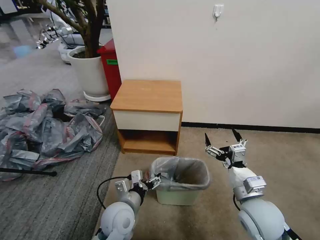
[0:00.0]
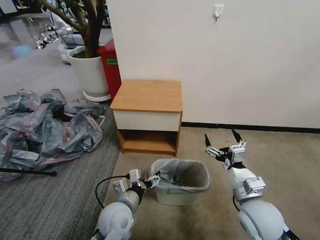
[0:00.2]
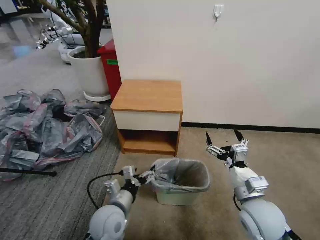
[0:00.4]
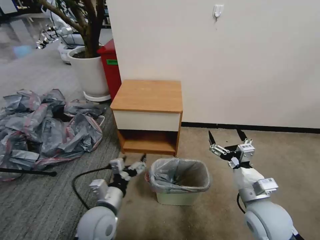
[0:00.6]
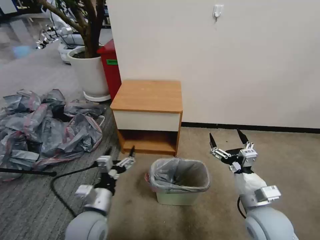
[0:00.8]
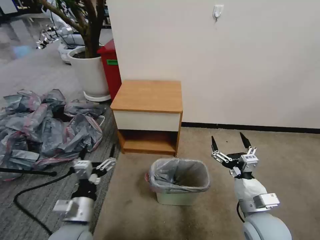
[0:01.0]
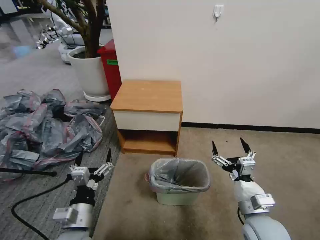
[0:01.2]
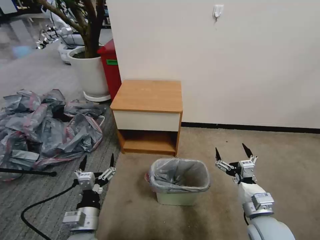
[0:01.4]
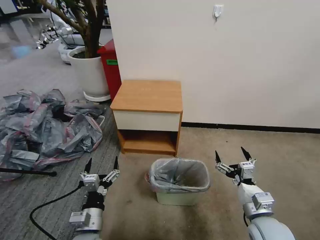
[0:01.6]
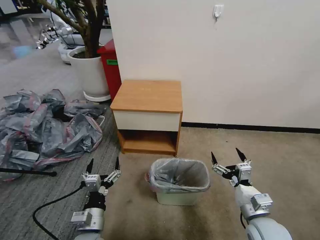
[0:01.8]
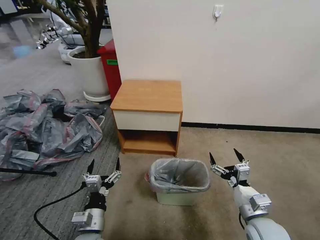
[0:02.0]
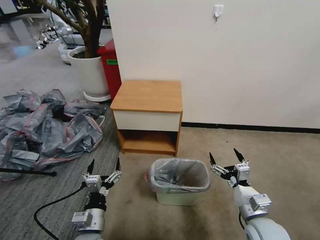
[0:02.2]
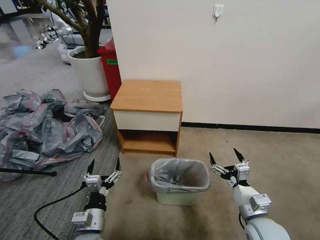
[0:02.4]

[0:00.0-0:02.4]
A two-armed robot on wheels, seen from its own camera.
Task of the whole recording: Pick up the garbage bag from the table and place it over the trash can.
0:00.0 to 0:01.2: The left gripper shifts roughly 10 cm to the left and backward.
0:01.2 to 0:02.4: The left gripper heads downward, covering approximately 5 cm.

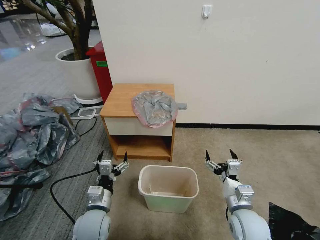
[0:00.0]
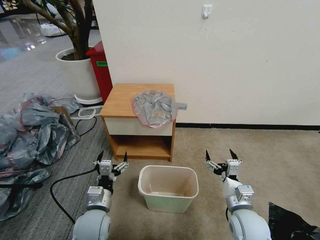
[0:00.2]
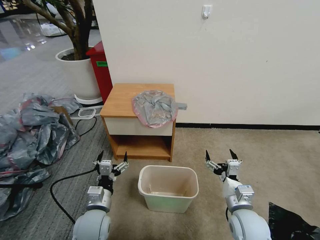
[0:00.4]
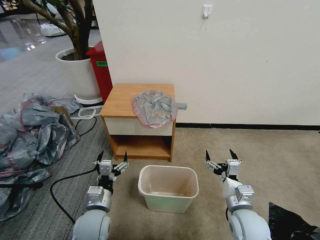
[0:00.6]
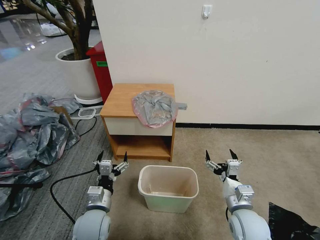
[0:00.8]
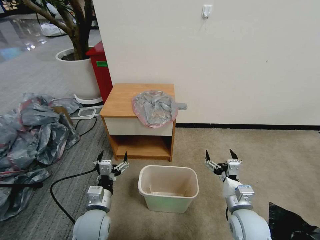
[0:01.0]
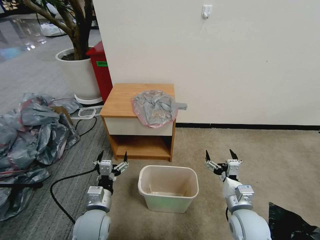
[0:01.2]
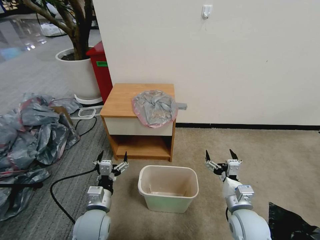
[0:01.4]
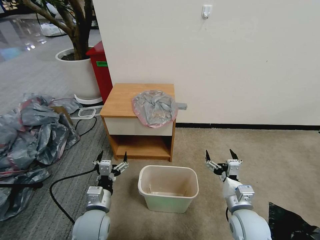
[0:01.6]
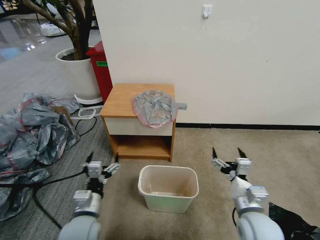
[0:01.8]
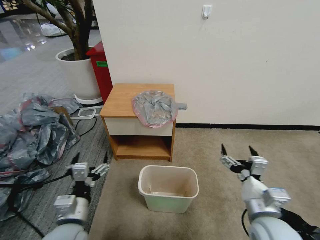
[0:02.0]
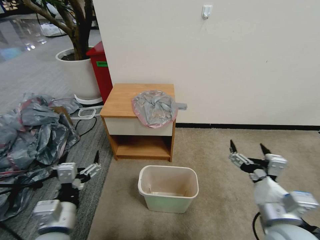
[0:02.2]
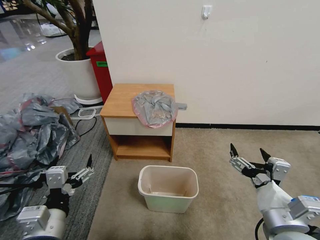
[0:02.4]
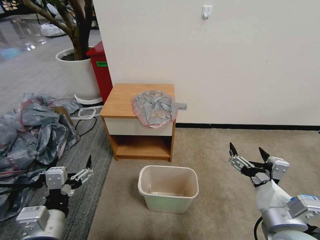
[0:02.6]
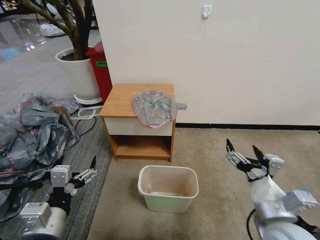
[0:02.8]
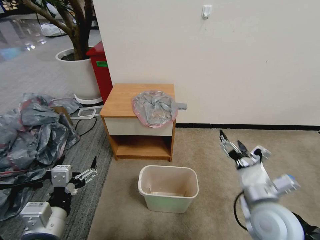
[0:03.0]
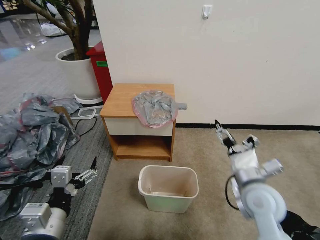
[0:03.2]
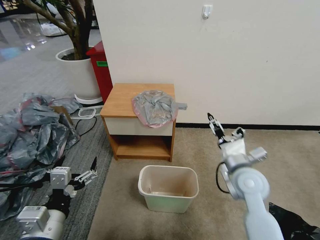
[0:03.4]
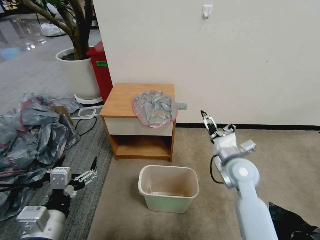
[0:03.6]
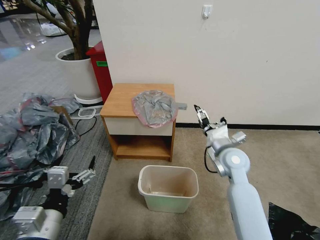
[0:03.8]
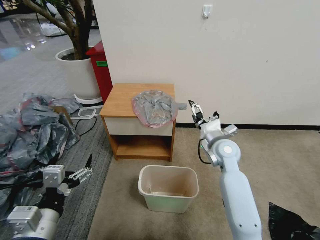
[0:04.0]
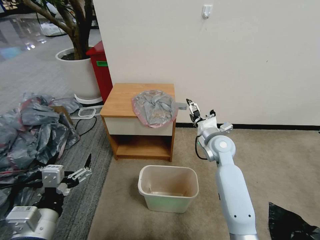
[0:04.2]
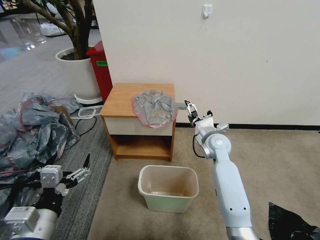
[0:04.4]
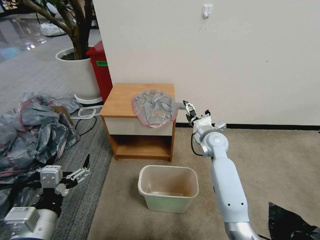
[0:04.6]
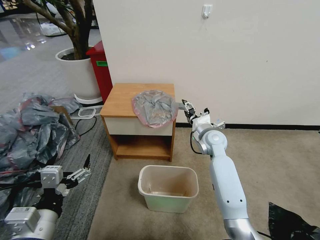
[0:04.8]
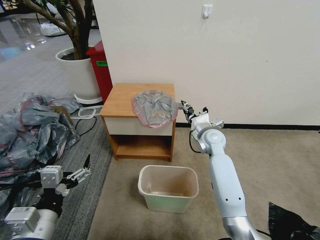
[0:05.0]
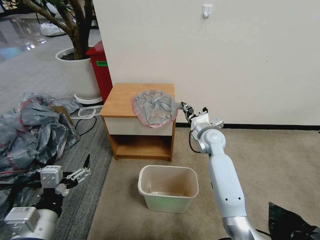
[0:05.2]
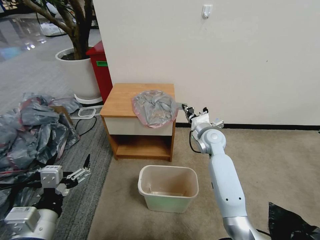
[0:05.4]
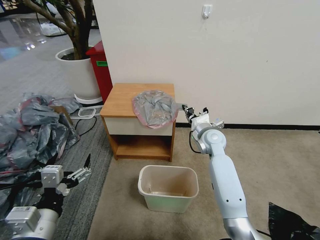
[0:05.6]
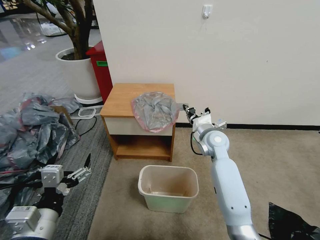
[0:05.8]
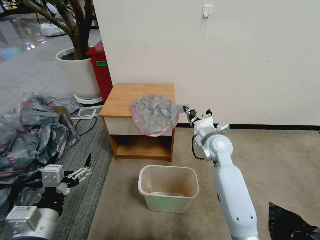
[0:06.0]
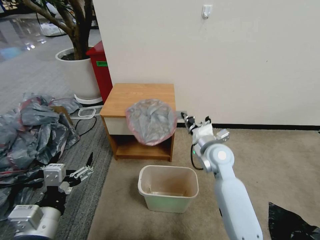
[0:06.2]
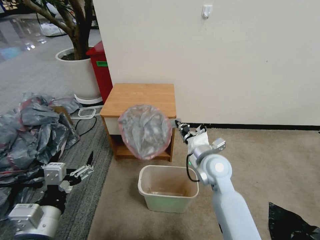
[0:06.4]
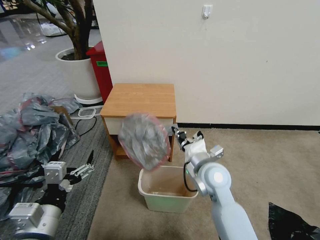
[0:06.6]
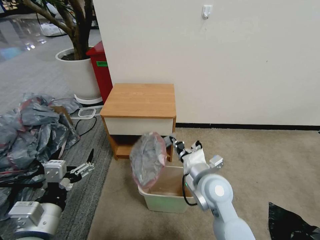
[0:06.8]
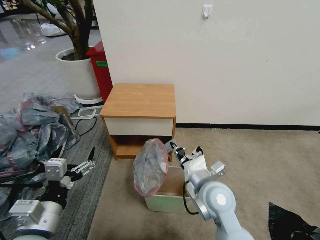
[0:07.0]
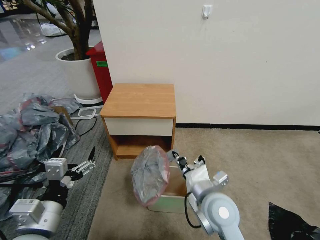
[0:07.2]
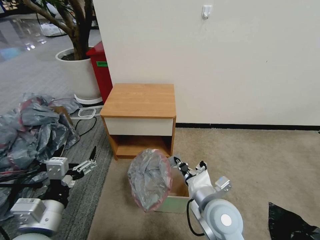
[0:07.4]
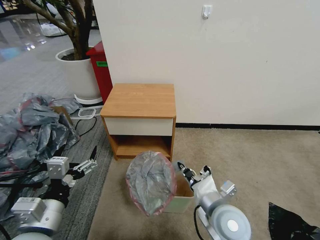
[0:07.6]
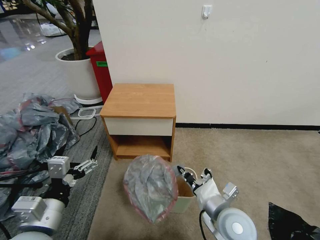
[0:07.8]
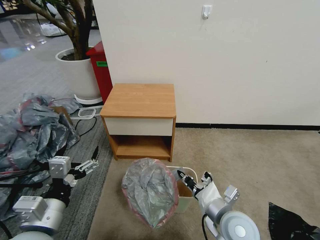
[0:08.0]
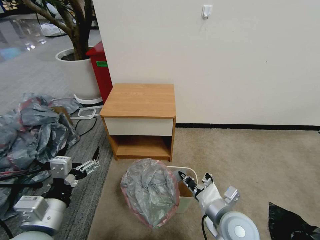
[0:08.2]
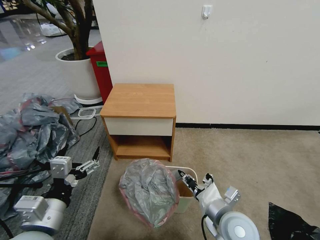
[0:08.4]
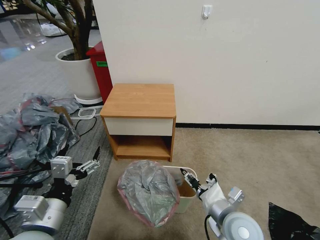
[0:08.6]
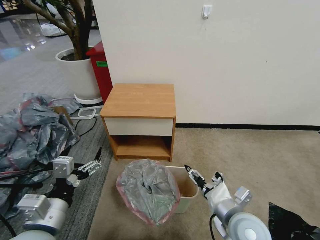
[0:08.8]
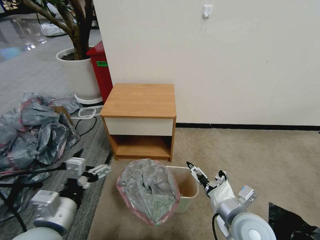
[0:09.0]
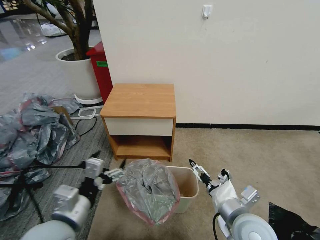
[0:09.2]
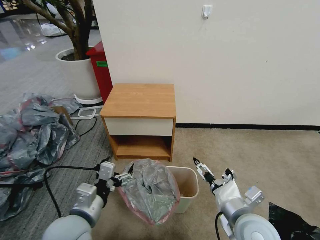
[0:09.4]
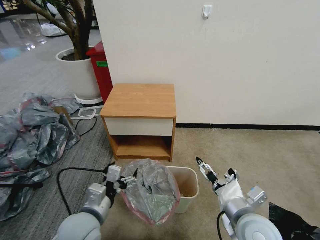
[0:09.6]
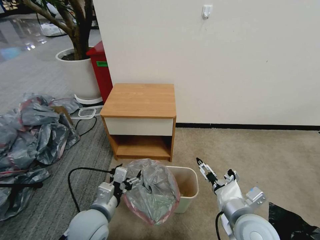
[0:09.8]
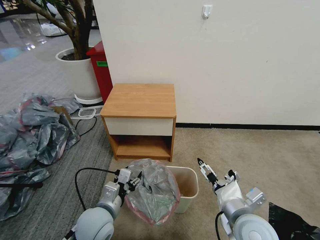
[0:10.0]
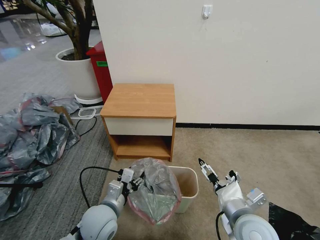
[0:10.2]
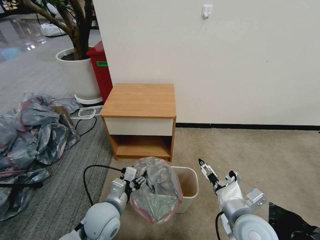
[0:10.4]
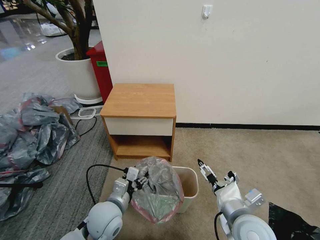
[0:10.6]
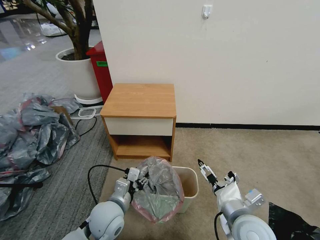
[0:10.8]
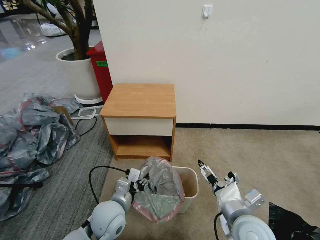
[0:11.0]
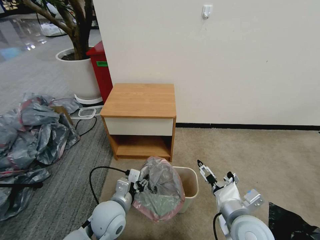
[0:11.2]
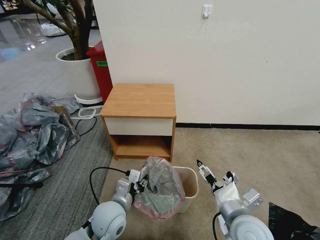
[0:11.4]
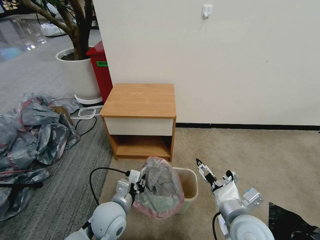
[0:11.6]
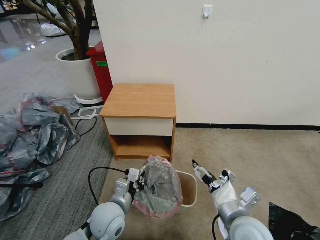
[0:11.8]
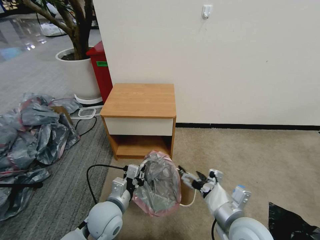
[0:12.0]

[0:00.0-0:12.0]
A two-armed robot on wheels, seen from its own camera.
Task of the whole recording: Pick up the garbage bag from the table and place it over the trash can.
0:01.6 to 0:03.0: The right gripper goes approximately 10 cm upward. Meanwhile the left gripper heads upward and backward, covering about 15 cm.
0:03.0 to 0:04.4: The right gripper is displaced forward by about 25 cm.
0:04.4 to 0:06.0: The right gripper closes up.
0:06.0 to 0:07.6: The right gripper heads backward, covering about 20 cm.
0:07.6 to 0:09.0: The right gripper moves some 5 cm, and opens its fingers.
0:09.0 to 0:10.4: The left gripper goes roughly 15 cm downward, forward and to the right, and closes up.
0:10.4 to 0:12.0: The left gripper closes up.

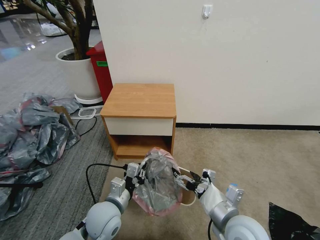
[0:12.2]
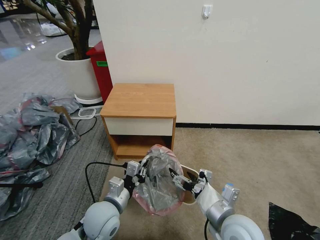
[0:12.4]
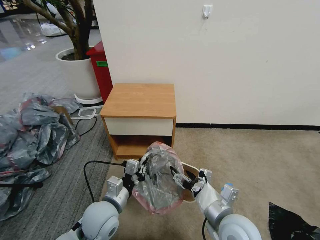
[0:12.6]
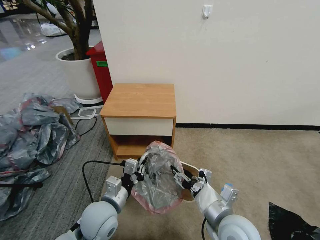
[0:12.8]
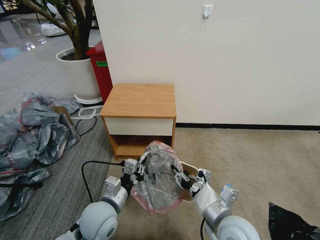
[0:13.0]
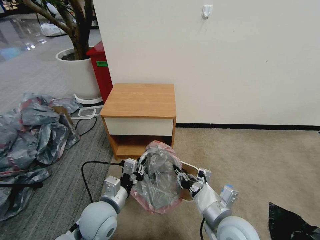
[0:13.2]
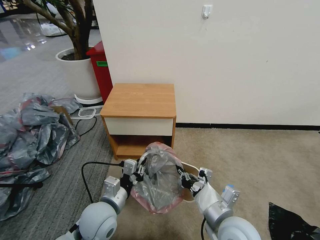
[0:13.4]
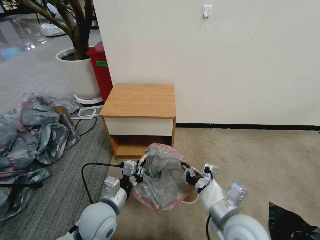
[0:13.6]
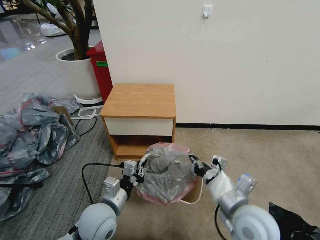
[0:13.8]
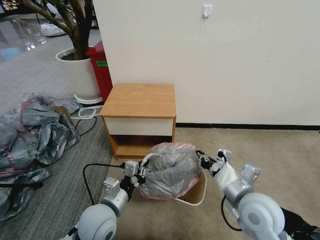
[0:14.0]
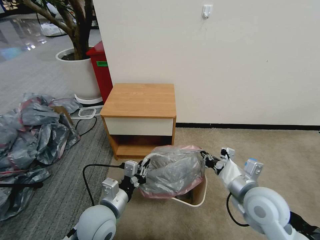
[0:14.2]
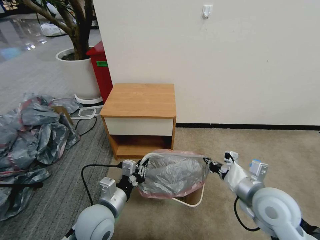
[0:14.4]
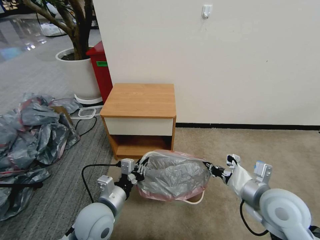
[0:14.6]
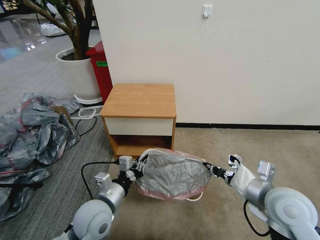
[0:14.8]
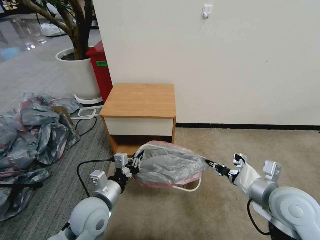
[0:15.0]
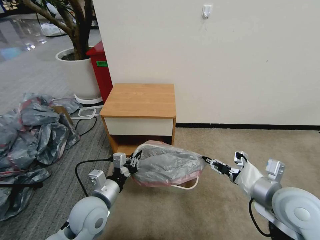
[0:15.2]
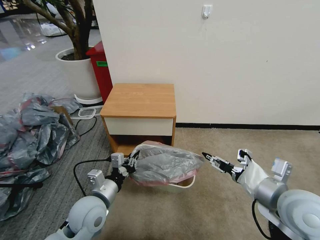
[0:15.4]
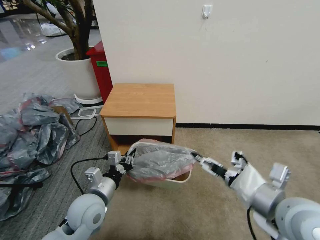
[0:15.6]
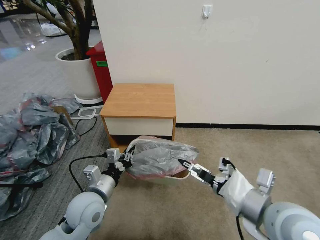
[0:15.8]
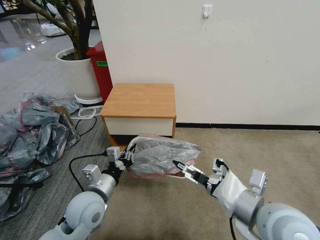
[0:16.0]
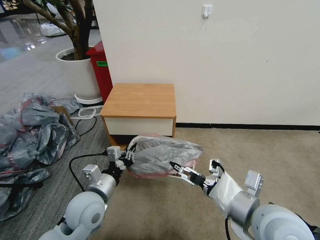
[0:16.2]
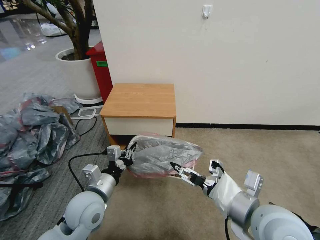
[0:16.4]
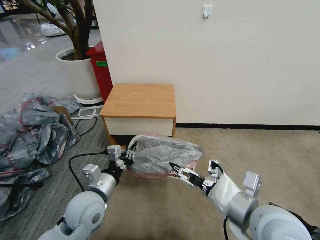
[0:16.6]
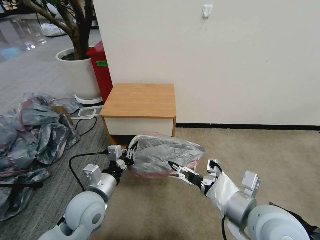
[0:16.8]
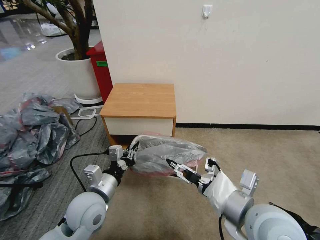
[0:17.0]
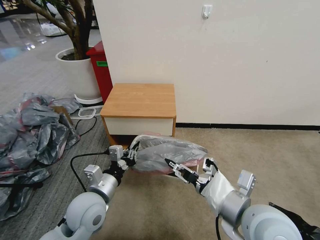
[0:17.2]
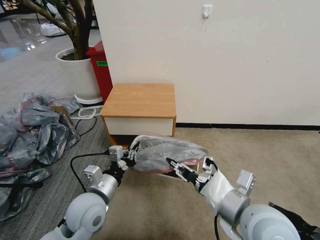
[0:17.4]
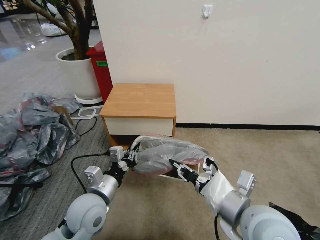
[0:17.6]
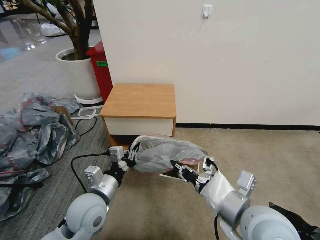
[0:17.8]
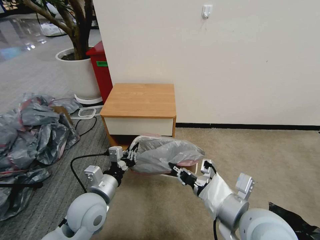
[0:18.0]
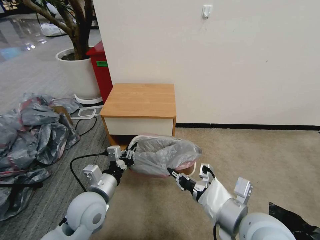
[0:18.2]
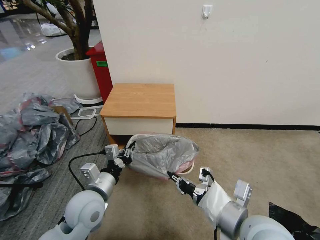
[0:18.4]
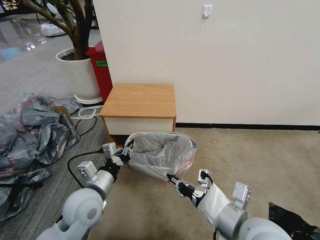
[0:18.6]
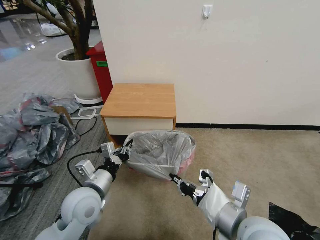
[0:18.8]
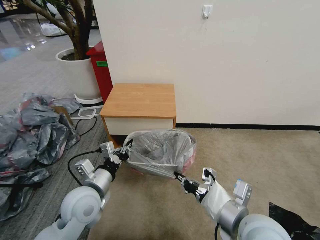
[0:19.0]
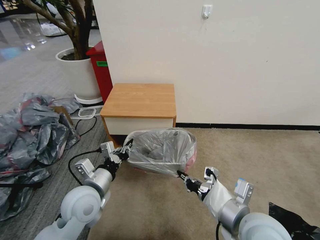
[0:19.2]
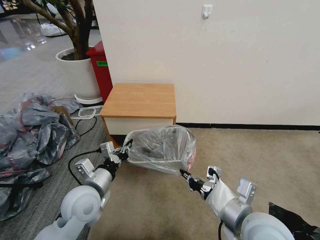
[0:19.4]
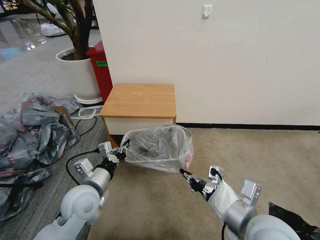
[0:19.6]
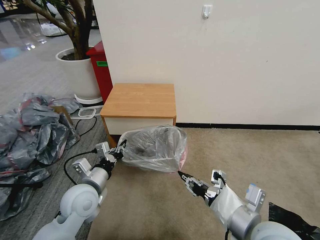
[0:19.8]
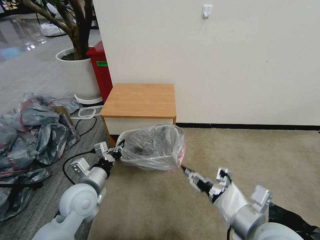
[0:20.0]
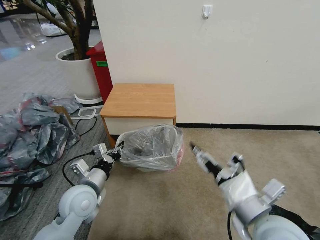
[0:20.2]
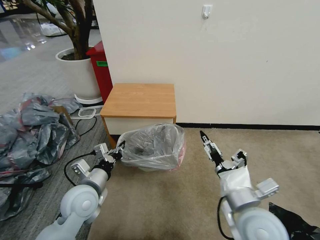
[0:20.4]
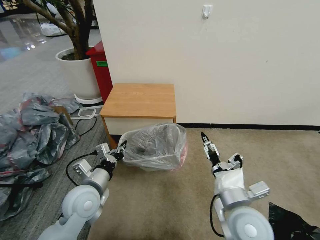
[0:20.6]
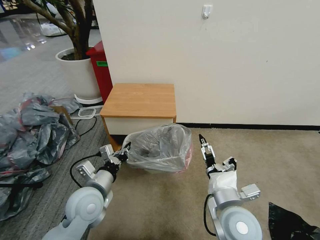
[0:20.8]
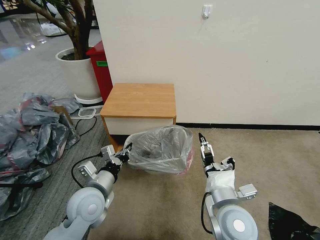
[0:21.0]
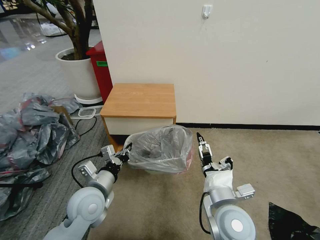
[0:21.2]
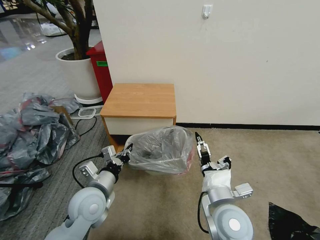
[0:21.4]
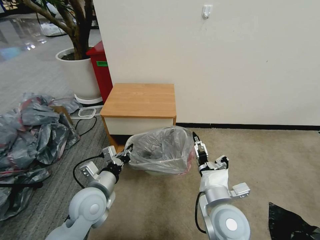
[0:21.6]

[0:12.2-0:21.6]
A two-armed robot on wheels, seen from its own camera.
Task of the whole recording: Pick up the garbage bag from the table and place it over the trash can.
0:12.2 to 0:13.8: The right gripper closes up.
0:13.8 to 0:15.4: The right gripper moves to the right and upward, roughly 10 cm, and opens up.
0:15.4 to 0:17.0: The right gripper heads to the left, covering about 10 cm.
0:17.0 to 0:18.4: The right gripper closes.
0:18.4 to 0:20.0: The right gripper opens its fingers.
0:20.0 to 0:21.6: The right gripper is displaced downward, to the left and forward by about 10 cm.
